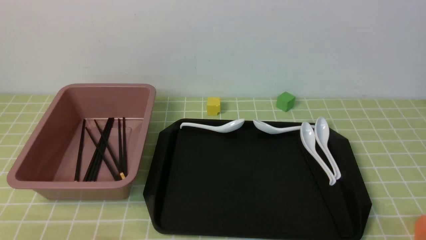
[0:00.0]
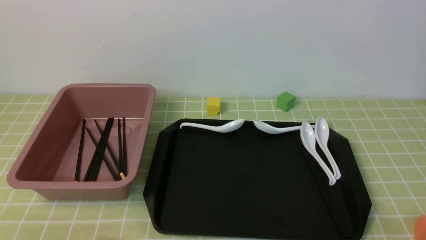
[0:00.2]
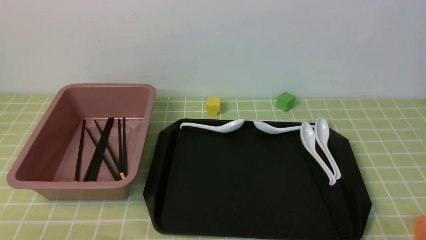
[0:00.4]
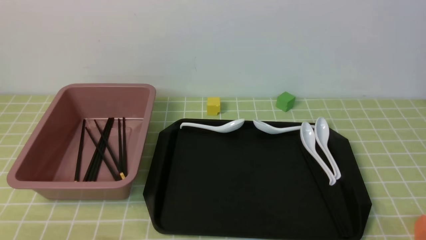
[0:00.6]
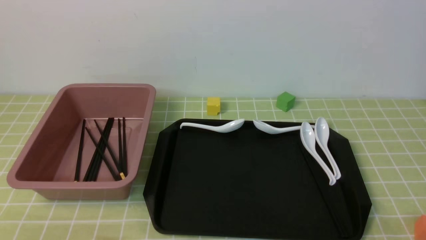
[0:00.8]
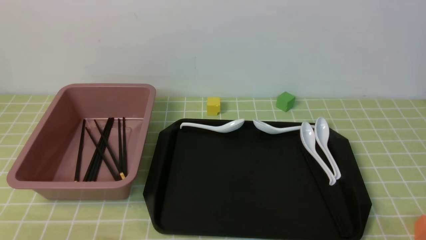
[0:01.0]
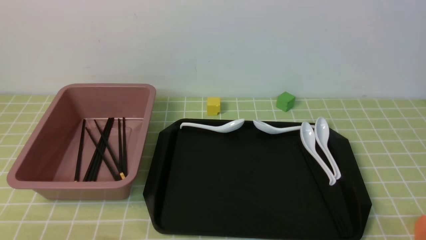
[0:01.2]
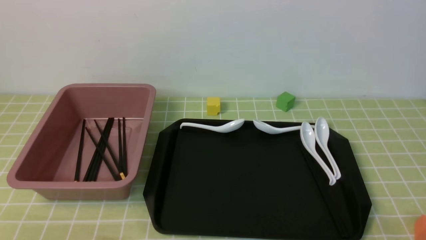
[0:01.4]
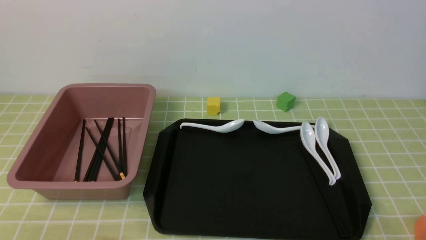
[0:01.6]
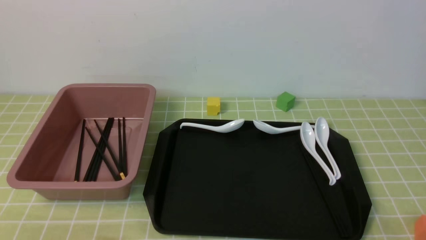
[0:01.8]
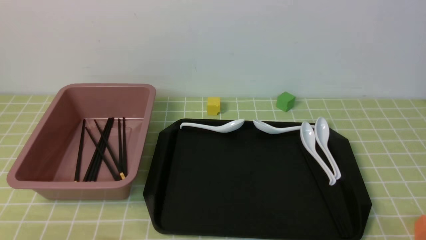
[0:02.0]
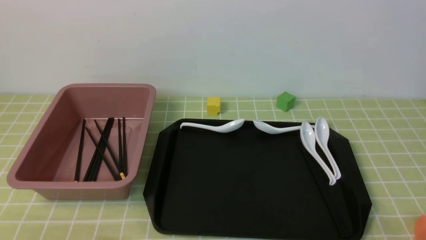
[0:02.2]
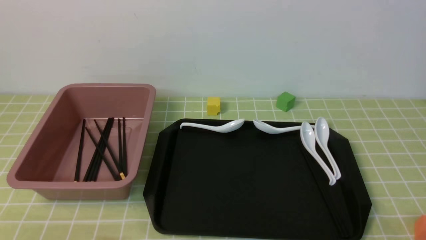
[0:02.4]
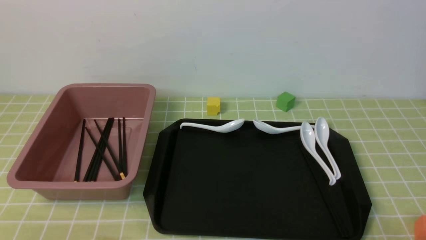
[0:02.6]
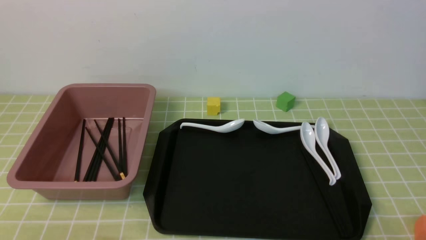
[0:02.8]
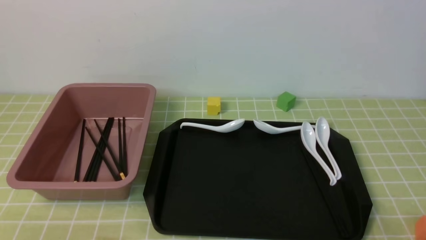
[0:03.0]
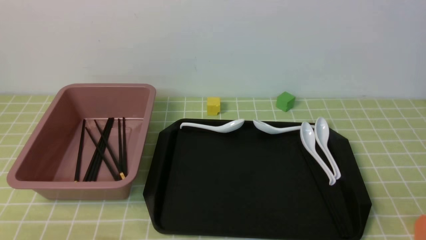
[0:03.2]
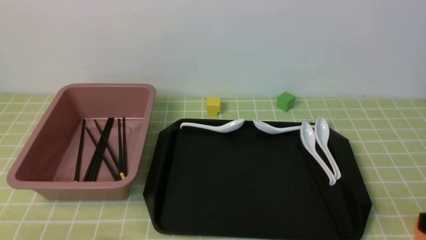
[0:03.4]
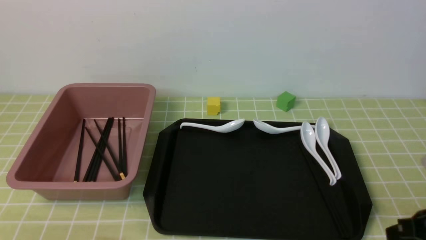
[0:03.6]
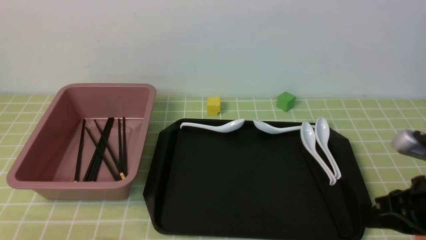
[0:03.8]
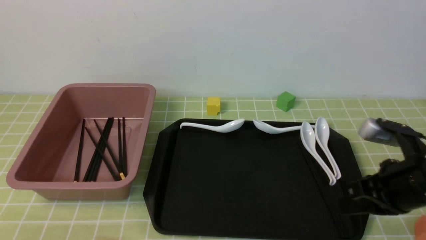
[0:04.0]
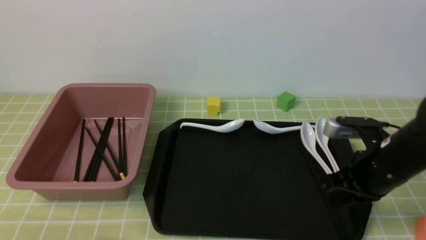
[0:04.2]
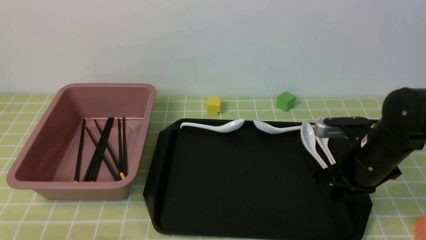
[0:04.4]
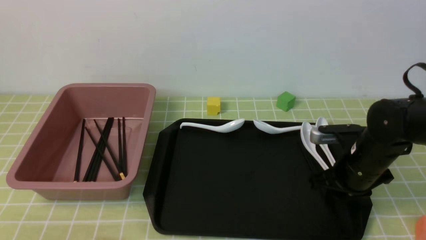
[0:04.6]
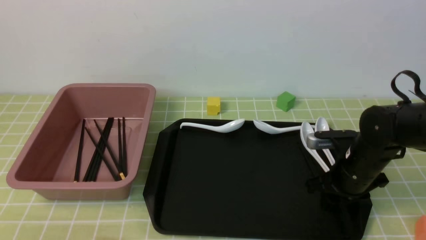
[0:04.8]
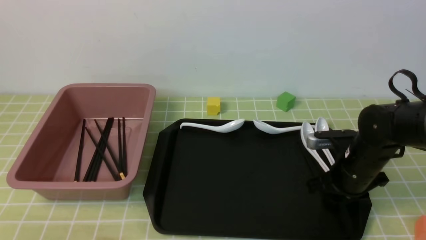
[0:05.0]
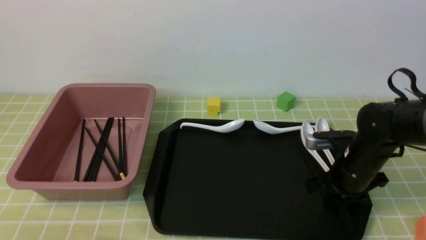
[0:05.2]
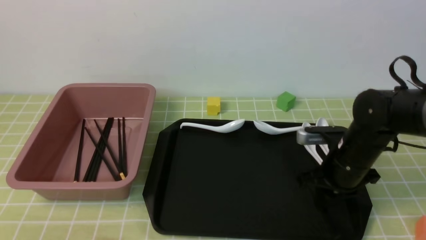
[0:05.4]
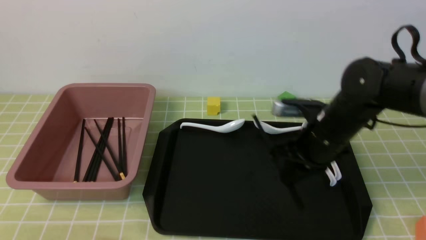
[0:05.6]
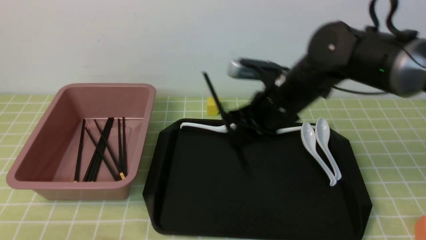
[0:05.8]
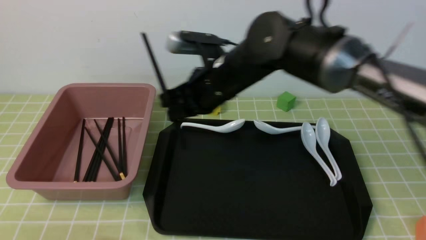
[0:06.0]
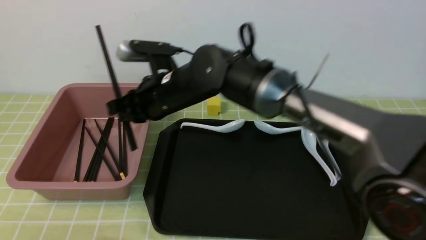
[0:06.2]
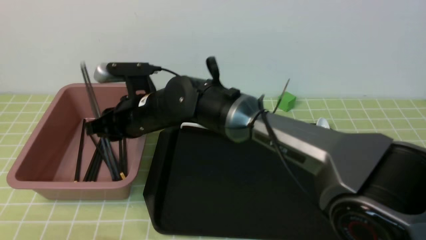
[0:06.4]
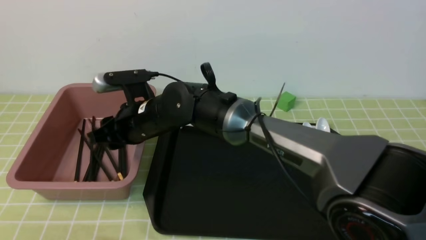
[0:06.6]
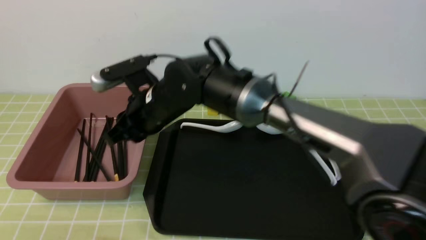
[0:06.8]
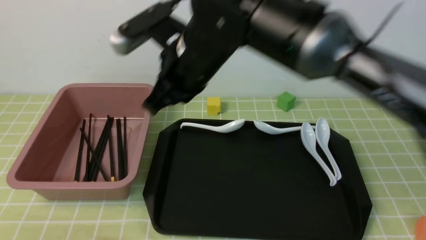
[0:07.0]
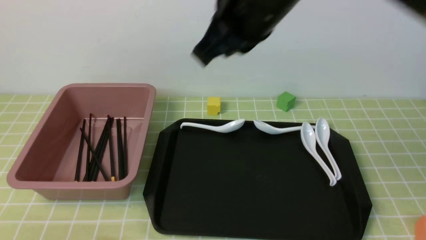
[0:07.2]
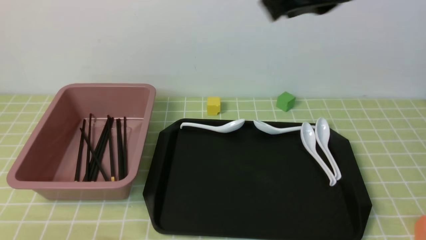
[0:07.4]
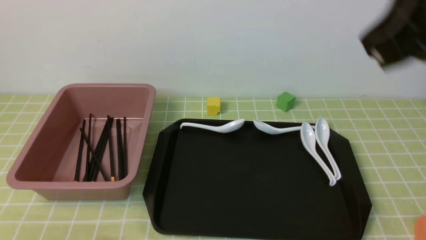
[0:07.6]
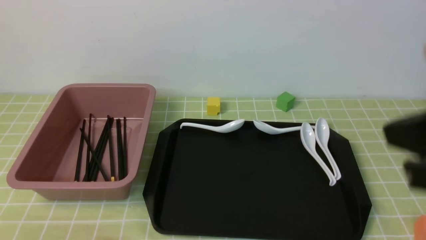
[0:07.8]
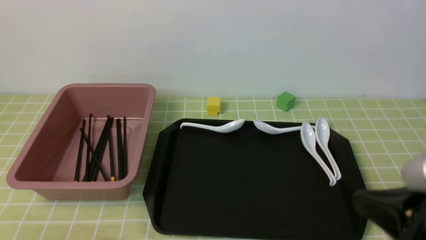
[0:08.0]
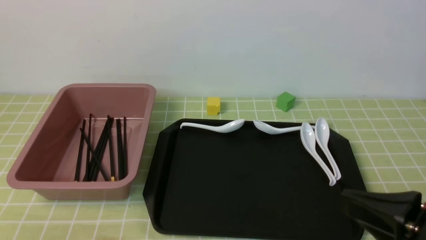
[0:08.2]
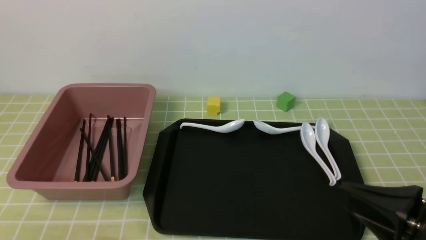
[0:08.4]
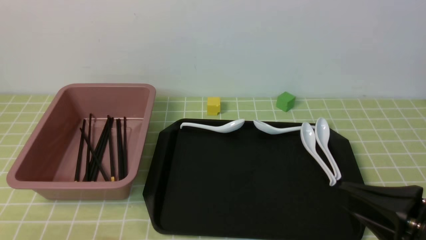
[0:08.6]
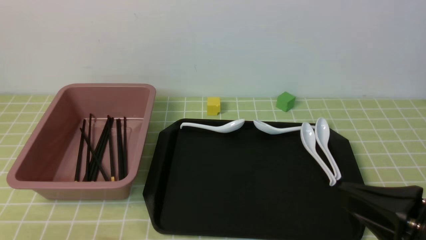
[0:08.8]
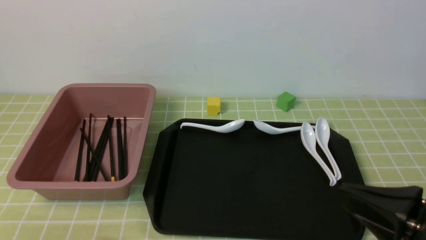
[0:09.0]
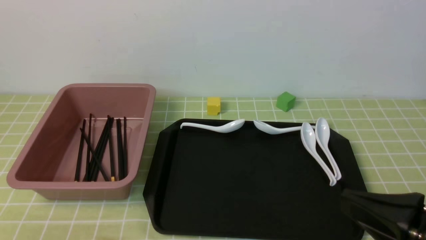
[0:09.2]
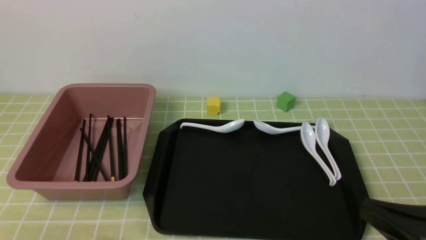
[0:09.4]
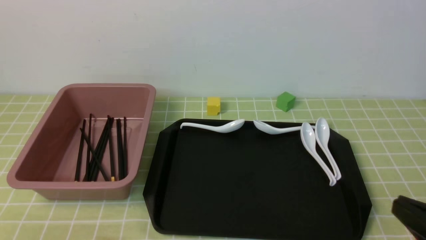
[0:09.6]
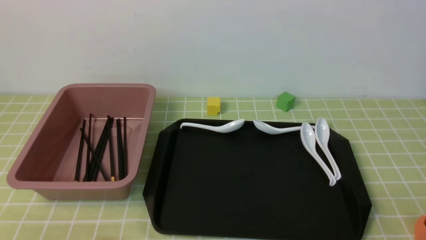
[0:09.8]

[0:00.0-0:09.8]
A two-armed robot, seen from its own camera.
Step, 0:00.0 to 0:05.6: use the right arm to grab a pair of chopsticks.
Step, 0:05.8 to 0:06.8: use the right arm to put the chopsticks into the lunch box.
0:00.0 to 0:01.4: Neither gripper changes place.
0:02.8 to 0:04.2: The right gripper goes about 25 cm forward, and closes up.
0:04.2 to 0:05.6: The right gripper goes about 10 cm to the left and forward, and opens and closes again.
0:05.6 to 0:07.0: The right gripper is displaced to the left and upward by about 20 cm, and opens and closes again.
0:07.0 to 0:08.4: The right gripper moves to the right and backward, approximately 30 cm.
0:08.4 to 0:09.8: The right gripper goes some 10 cm to the right and downward.

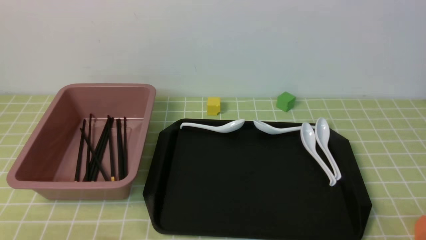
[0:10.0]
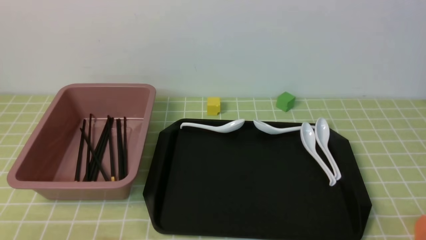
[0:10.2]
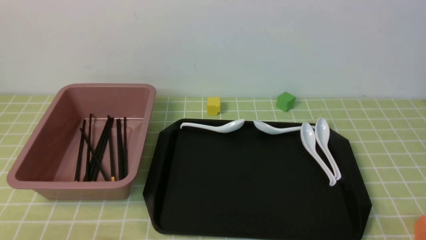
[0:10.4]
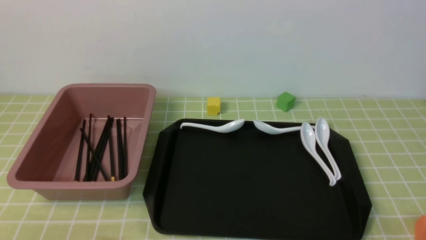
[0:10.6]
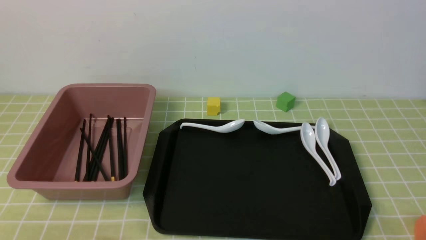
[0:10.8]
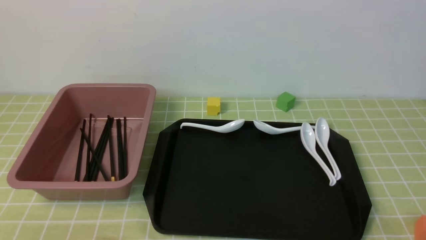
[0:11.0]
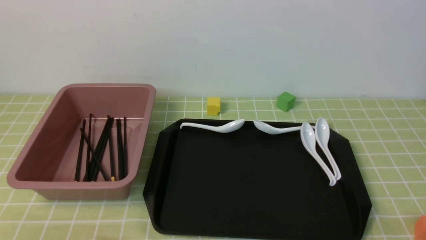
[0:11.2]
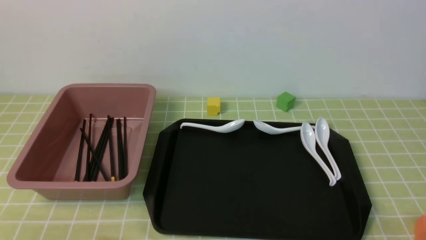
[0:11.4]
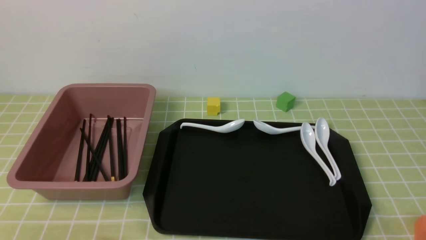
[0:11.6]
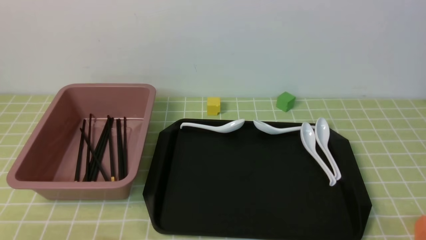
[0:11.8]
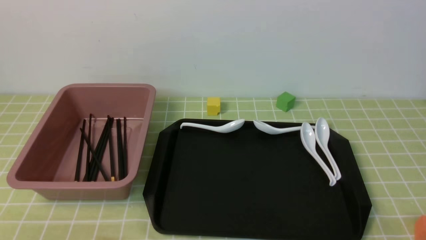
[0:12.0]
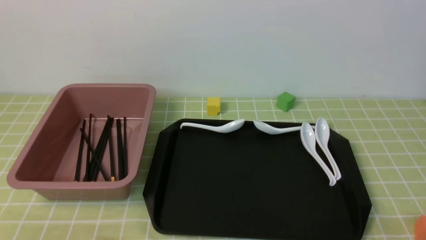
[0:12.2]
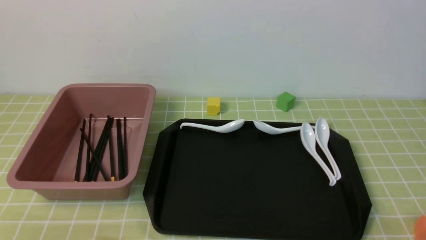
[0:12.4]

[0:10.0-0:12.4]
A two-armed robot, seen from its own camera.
0:11.2 to 0:12.4: Both grippers stay about where they are.

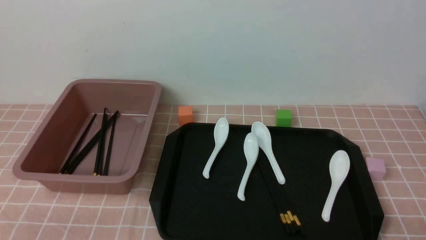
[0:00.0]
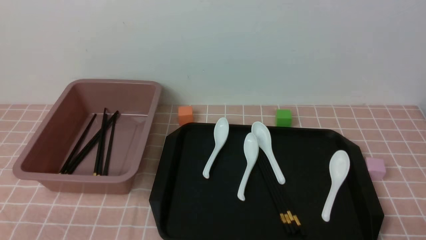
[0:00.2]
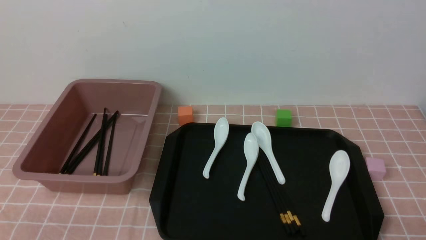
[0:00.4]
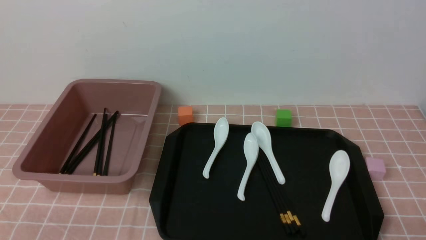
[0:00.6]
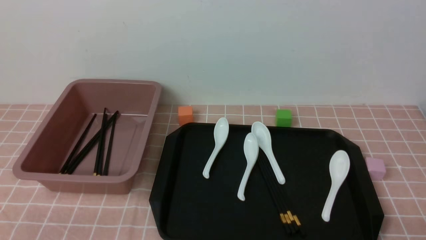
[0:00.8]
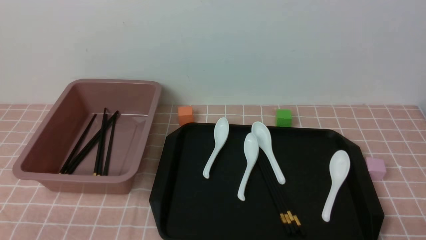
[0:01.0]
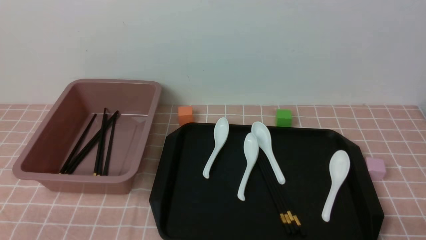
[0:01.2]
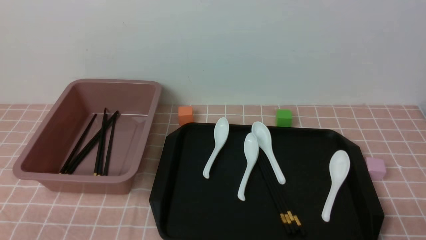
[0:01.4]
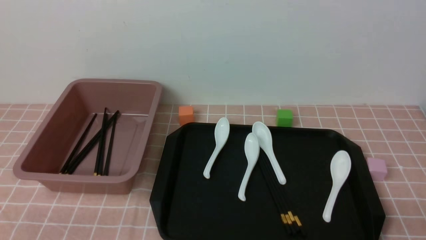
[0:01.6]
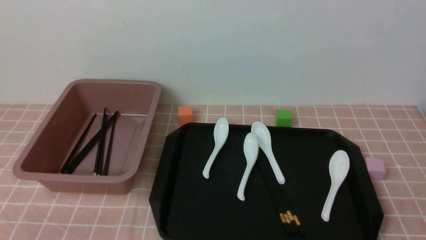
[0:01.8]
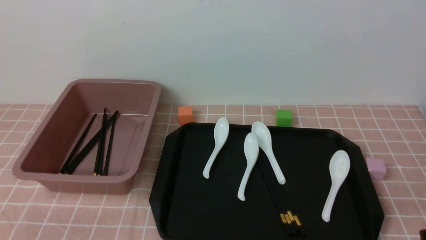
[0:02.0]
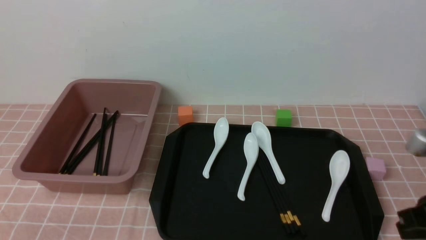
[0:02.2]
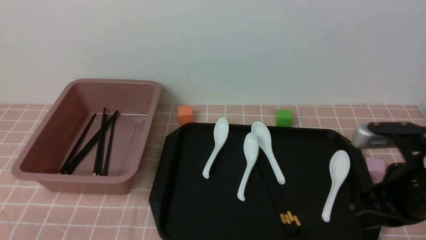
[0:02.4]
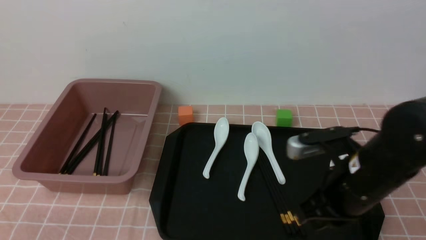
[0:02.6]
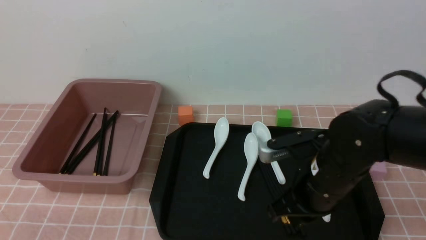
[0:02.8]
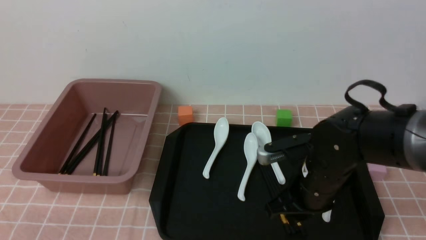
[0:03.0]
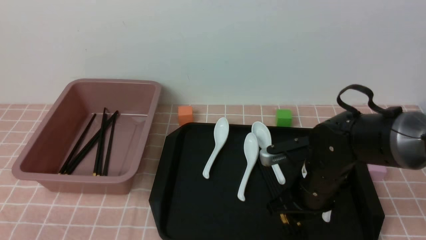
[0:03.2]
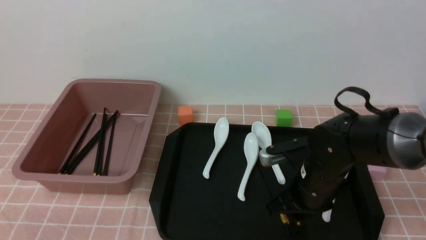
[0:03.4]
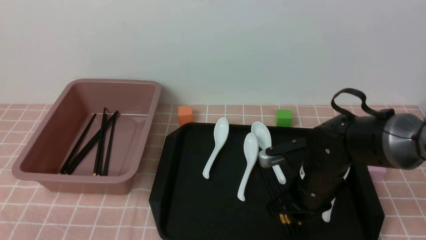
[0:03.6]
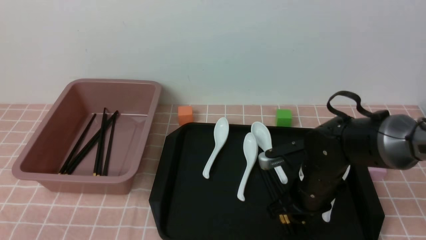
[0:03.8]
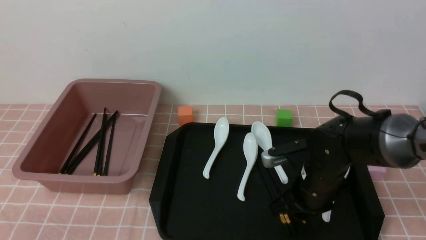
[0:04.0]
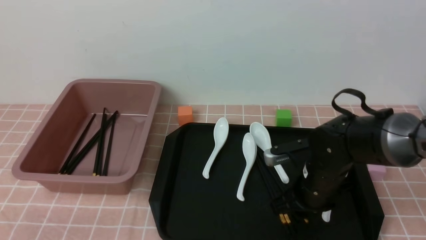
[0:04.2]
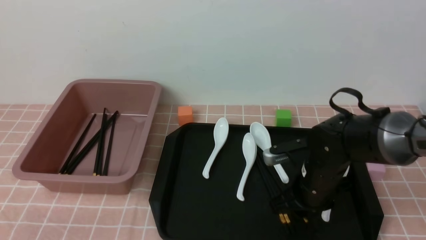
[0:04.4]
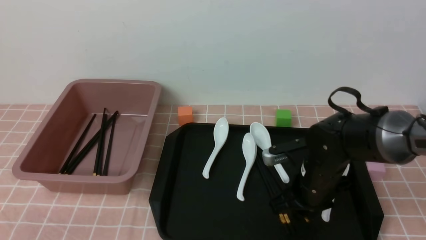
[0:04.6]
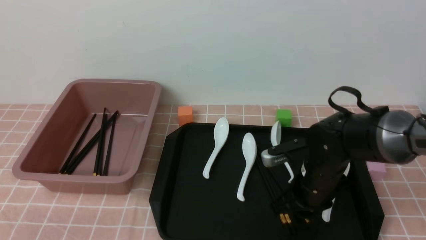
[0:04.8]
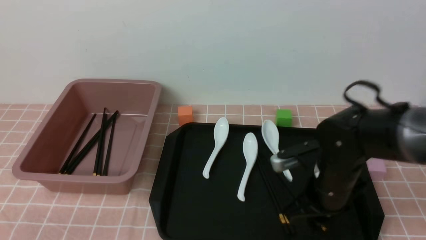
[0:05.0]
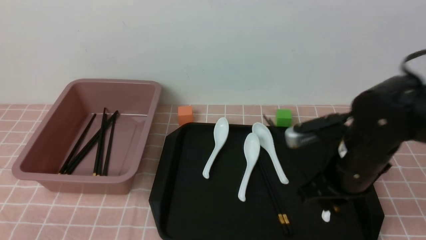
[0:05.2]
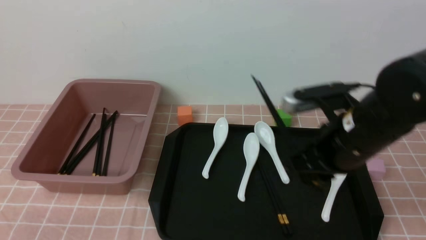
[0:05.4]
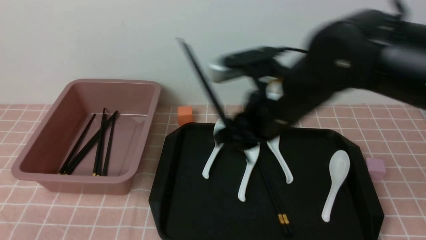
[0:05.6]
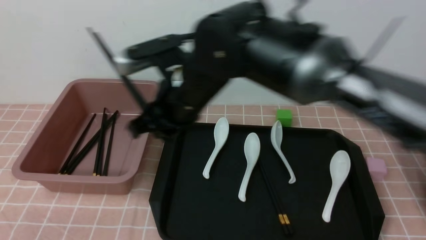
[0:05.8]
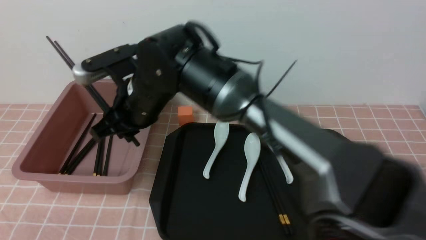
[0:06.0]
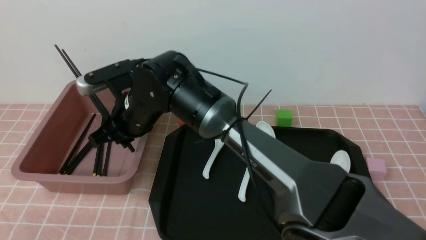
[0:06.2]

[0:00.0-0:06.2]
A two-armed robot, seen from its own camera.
Step, 0:00.0 to 0:05.2: use the right arm to grab a pair of chopsticks.
0:00.0 to 0:01.6: The right gripper goes roughly 5 cm upward.
0:01.6 to 0:03.2: The right gripper shifts roughly 30 cm forward and to the left, and opens.
0:03.2 to 0:04.6: The grippers stay close to where they were, moving slightly.
0:04.6 to 0:06.2: The right gripper is displaced to the left and upward by approximately 30 cm.
